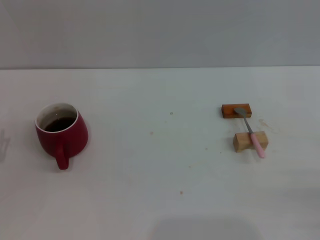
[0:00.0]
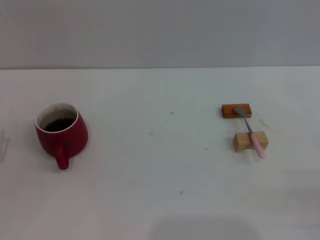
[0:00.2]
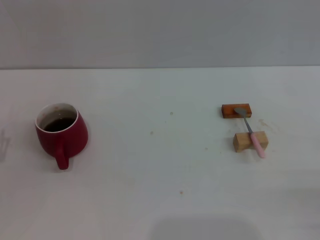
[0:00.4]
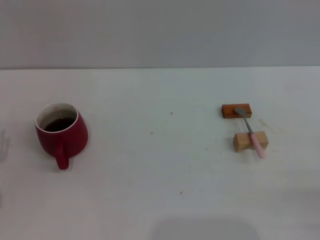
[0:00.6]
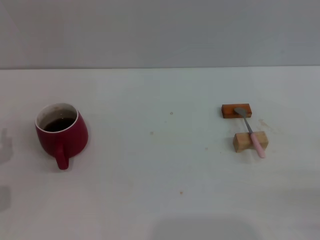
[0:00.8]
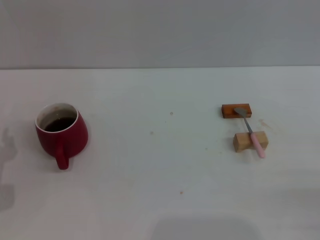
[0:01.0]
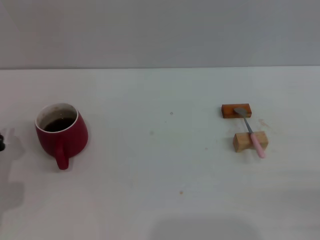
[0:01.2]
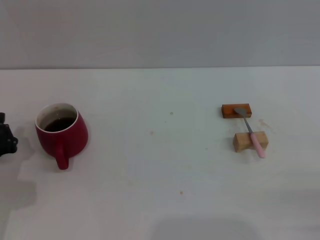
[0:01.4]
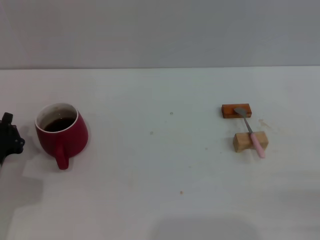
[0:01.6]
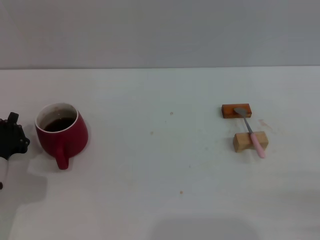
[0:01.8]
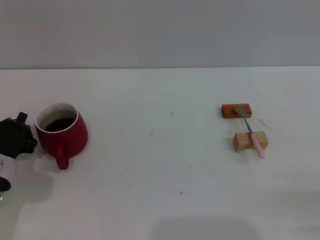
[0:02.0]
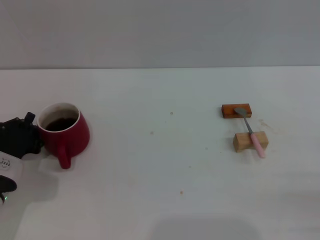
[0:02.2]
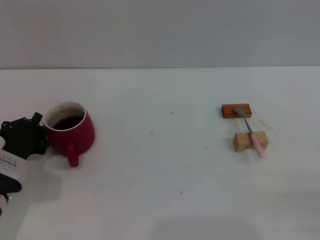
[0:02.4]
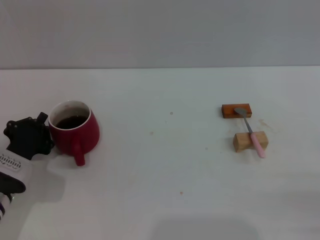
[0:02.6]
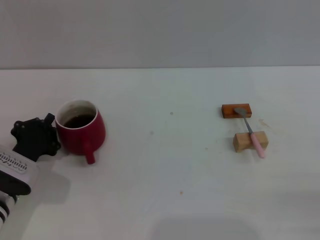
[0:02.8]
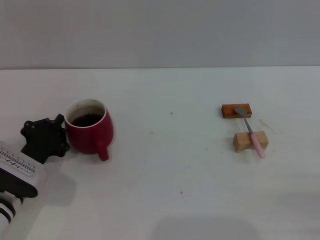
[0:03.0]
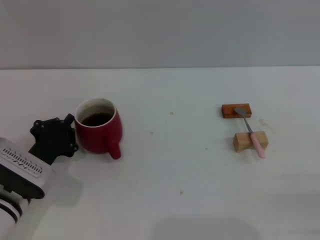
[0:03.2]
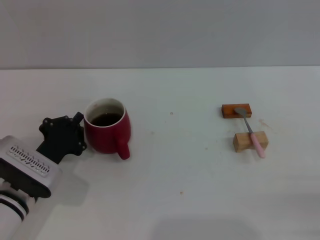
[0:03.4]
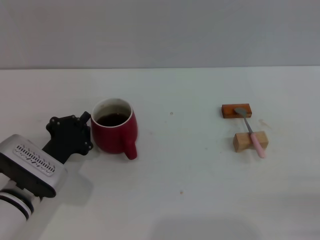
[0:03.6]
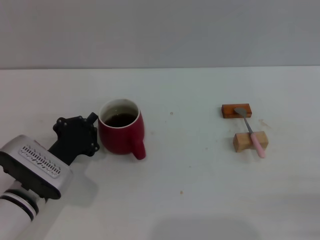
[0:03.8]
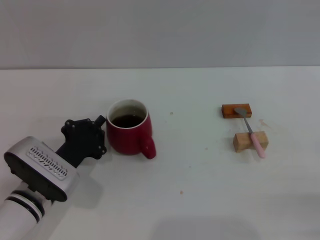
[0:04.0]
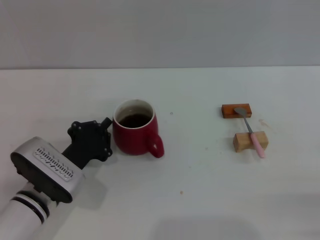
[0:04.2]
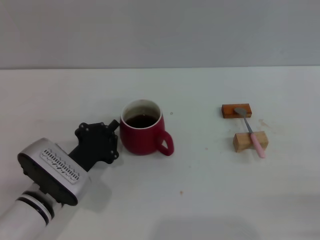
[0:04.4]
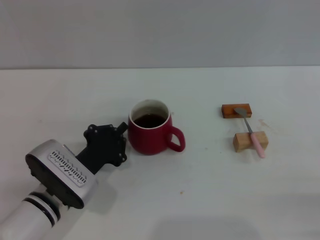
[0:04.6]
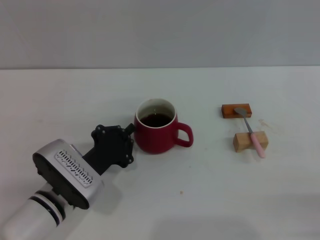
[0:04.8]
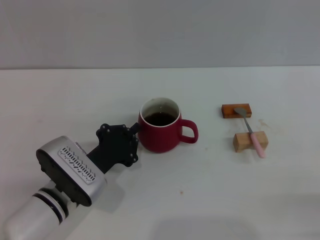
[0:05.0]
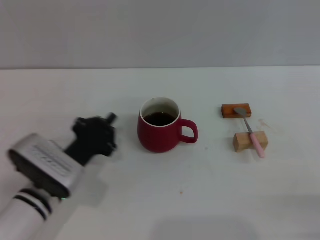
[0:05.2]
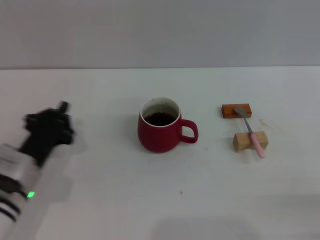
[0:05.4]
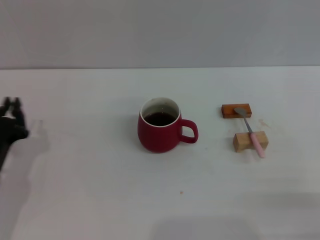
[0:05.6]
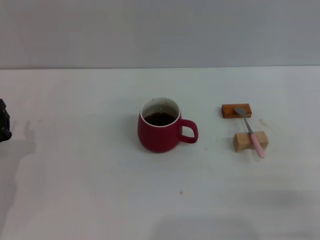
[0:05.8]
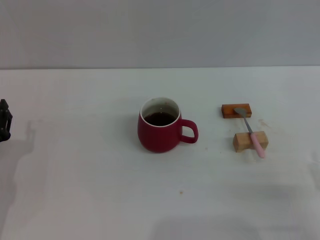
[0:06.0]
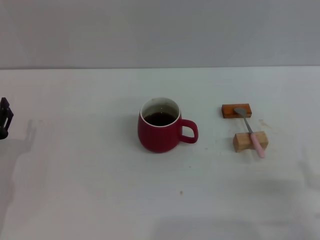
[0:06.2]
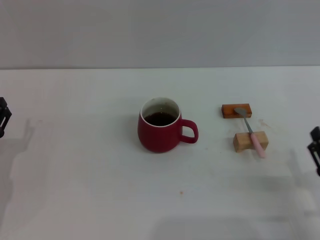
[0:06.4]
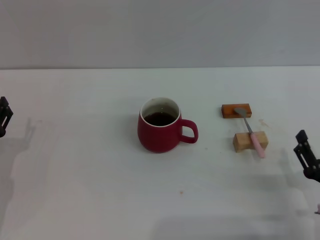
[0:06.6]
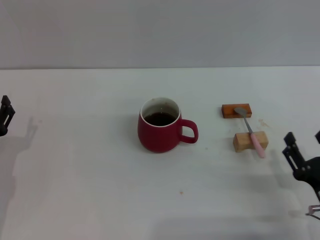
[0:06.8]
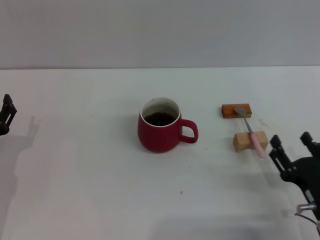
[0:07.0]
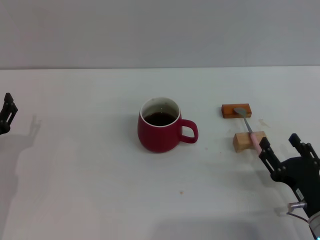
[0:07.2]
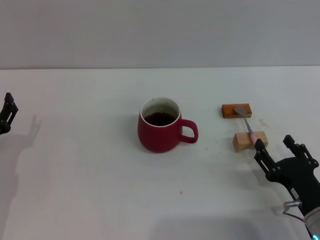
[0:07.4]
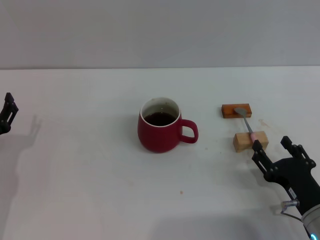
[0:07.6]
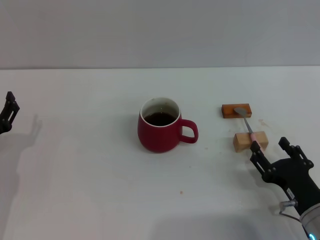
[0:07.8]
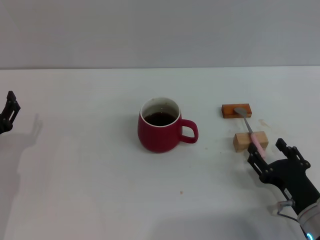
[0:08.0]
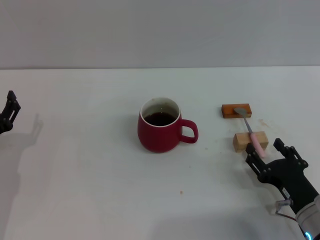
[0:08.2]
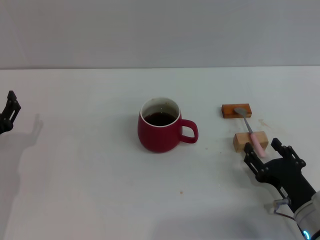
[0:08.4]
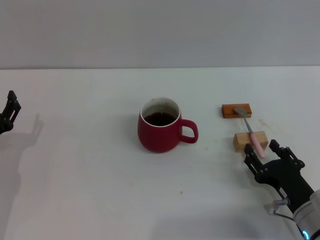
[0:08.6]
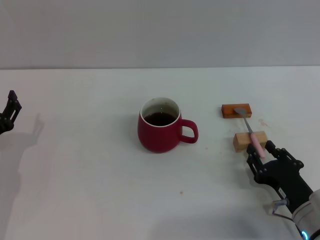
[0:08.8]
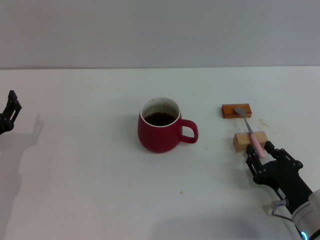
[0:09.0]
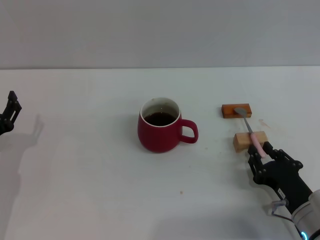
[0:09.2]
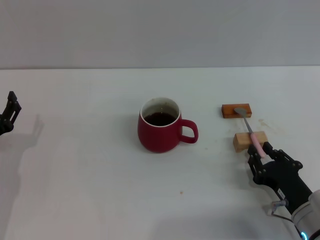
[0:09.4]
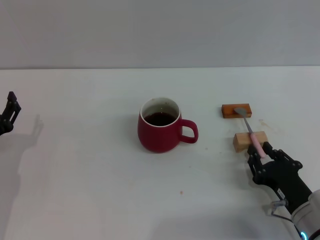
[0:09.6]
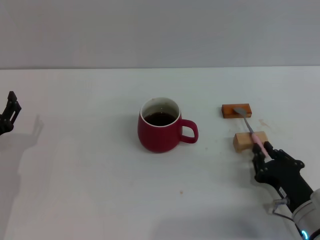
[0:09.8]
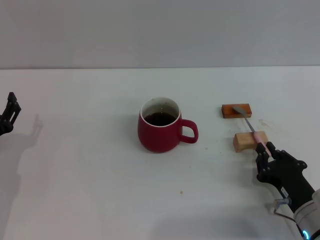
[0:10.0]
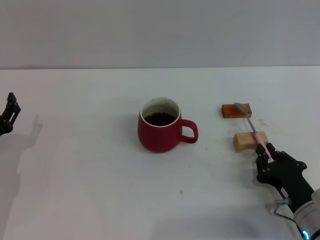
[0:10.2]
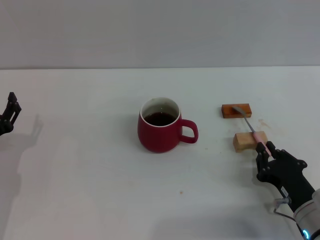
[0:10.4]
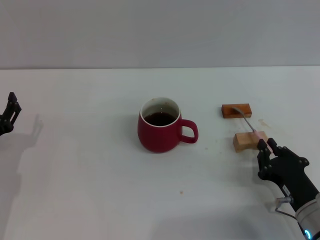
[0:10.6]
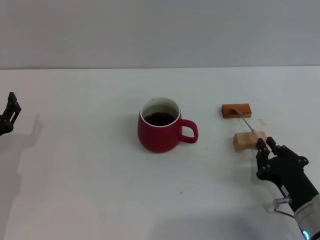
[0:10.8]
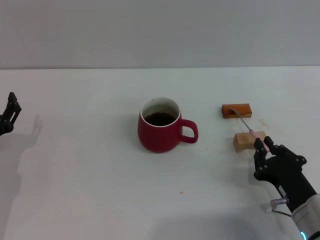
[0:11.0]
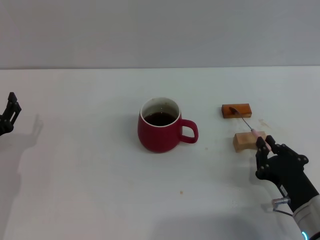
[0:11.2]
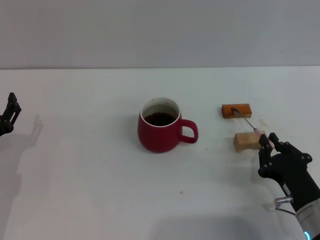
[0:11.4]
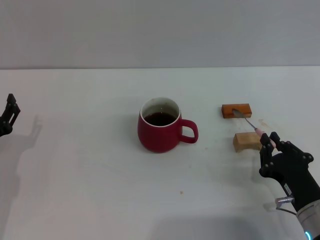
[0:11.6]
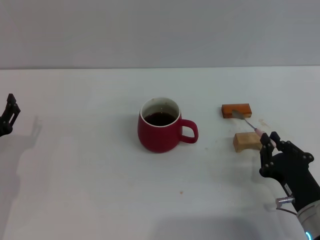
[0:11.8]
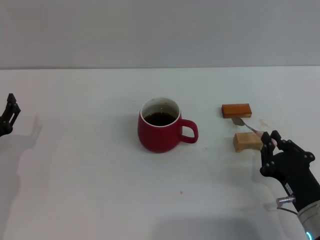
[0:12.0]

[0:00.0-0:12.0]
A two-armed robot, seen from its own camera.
Task of the whole recording: Move the red cup to the center, lift the pink spoon, stir it three times in the cup, and put the spoon into the cup.
Step, 0:00.0 to 0:05.0: Move the cup with coffee to the center of view with the left gripper.
0:00.0 to 0:01.6: The left gripper closes.
0:01.6 to 0:03.0: There are only small adjustments of the grippers.
0:03.0 to 0:04.4: The left gripper is displaced to the right by approximately 5 cm.
0:04.4 to 0:06.0: The left gripper moves to the left, about 10 cm, and opens up.
0:06.0 to 0:07.6: The right gripper goes about 10 cm to the left and forward.
0:07.6 to 0:09.0: The right gripper closes up.
0:09.0 to 0:10.4: The right gripper closes up.
0:10.4 to 0:12.0: The grippers stay close to where they were, moving slightly.

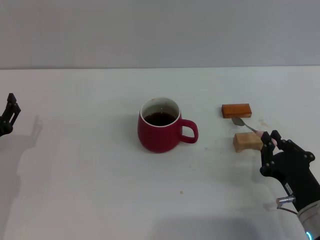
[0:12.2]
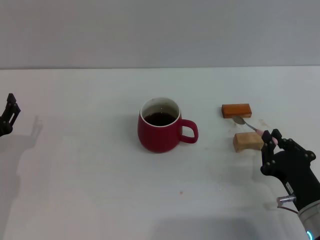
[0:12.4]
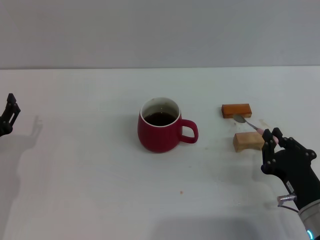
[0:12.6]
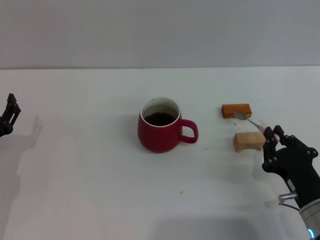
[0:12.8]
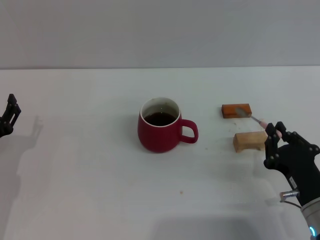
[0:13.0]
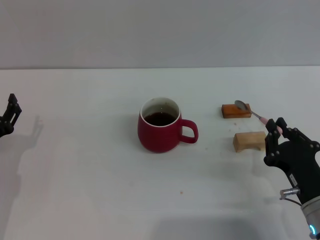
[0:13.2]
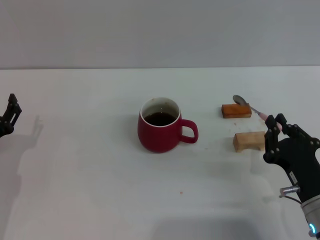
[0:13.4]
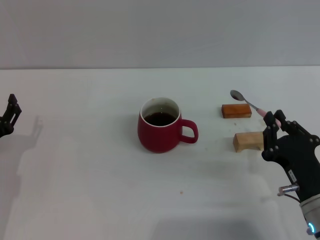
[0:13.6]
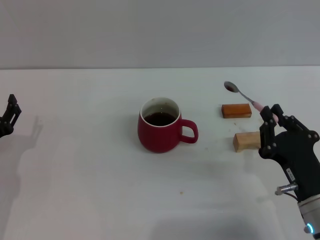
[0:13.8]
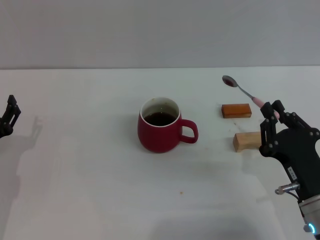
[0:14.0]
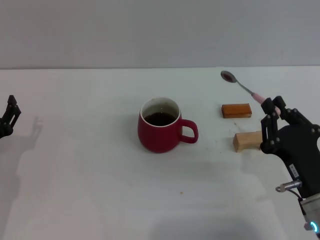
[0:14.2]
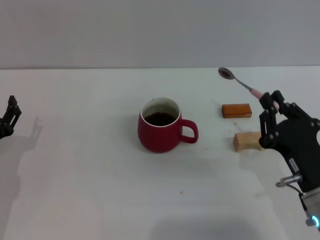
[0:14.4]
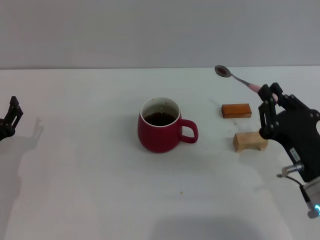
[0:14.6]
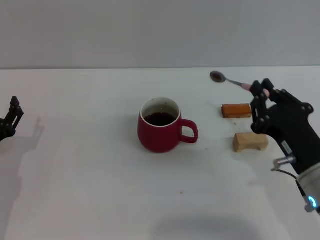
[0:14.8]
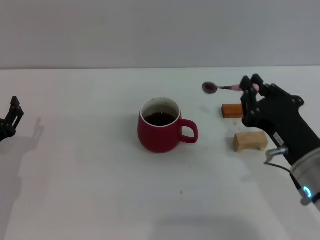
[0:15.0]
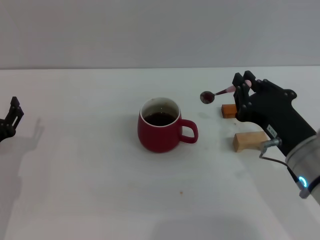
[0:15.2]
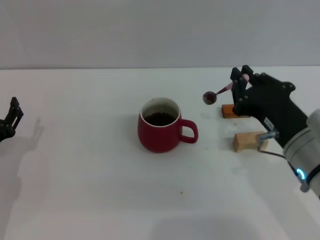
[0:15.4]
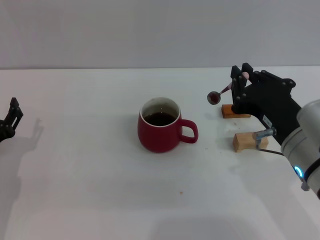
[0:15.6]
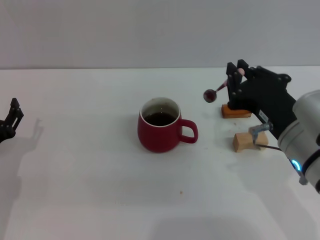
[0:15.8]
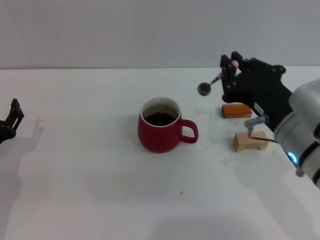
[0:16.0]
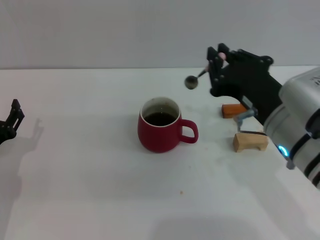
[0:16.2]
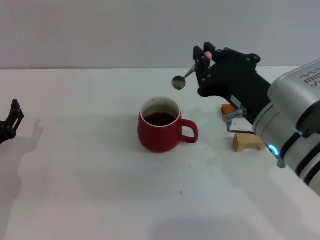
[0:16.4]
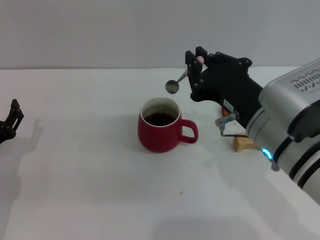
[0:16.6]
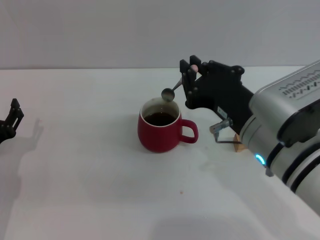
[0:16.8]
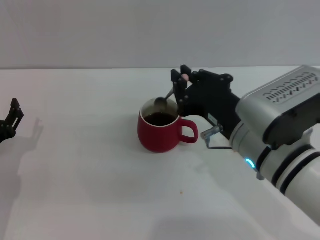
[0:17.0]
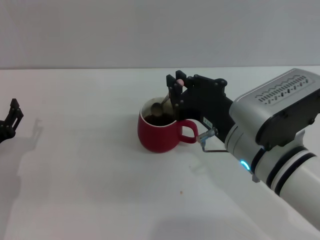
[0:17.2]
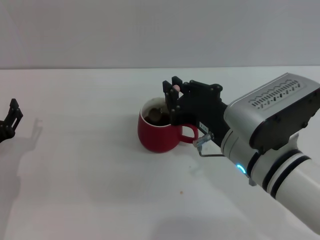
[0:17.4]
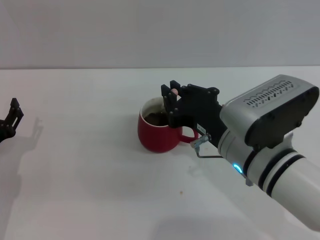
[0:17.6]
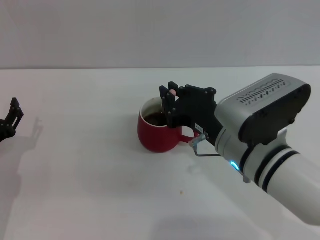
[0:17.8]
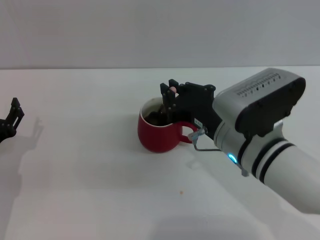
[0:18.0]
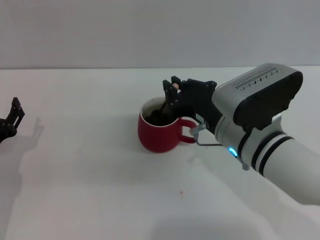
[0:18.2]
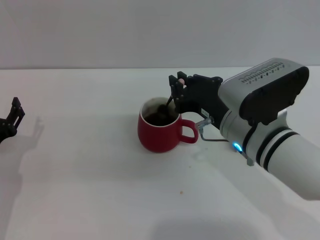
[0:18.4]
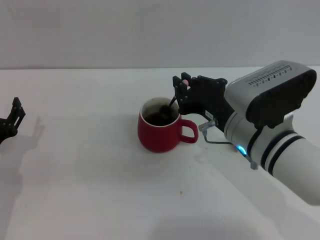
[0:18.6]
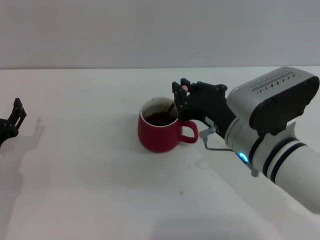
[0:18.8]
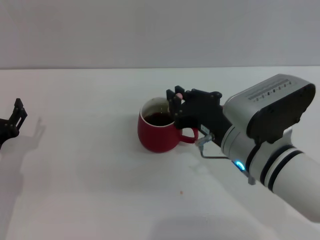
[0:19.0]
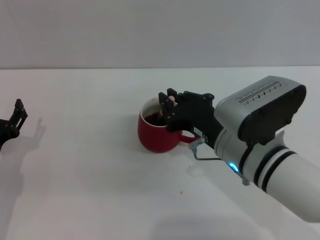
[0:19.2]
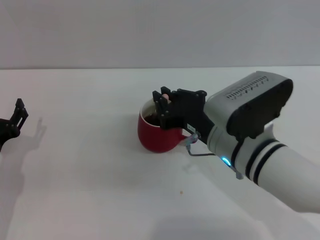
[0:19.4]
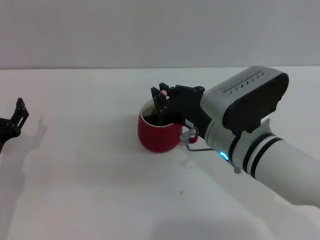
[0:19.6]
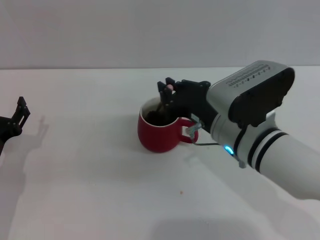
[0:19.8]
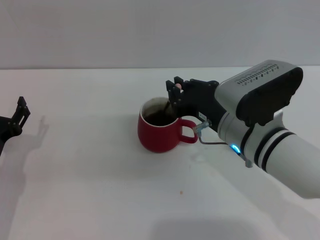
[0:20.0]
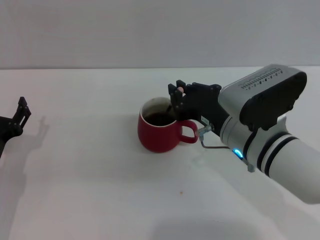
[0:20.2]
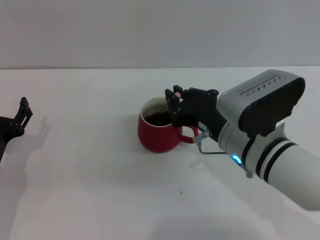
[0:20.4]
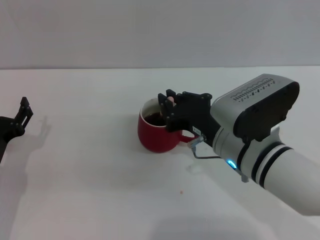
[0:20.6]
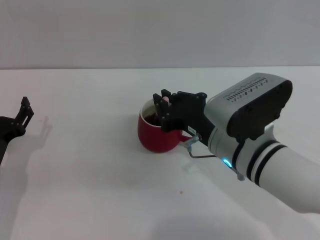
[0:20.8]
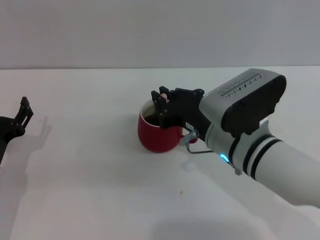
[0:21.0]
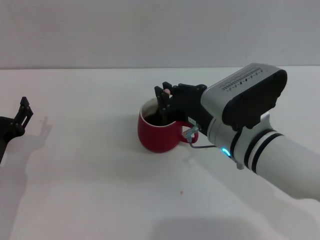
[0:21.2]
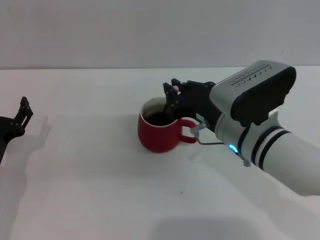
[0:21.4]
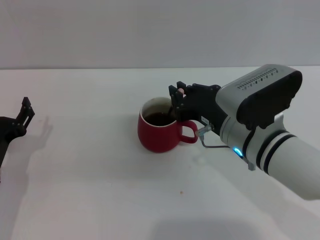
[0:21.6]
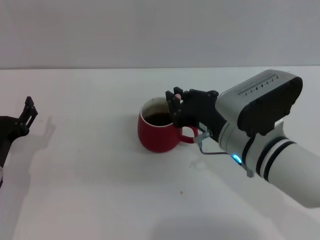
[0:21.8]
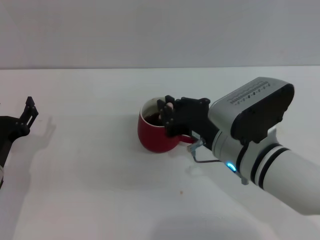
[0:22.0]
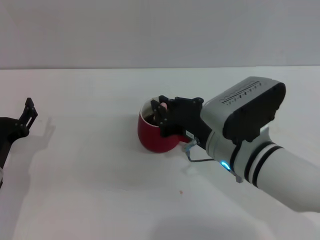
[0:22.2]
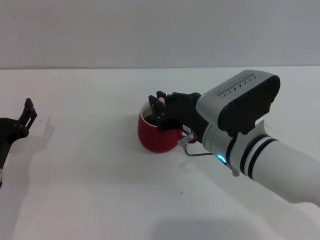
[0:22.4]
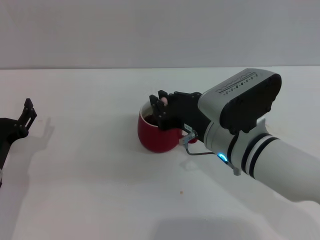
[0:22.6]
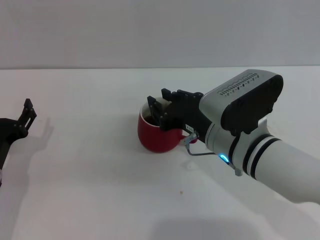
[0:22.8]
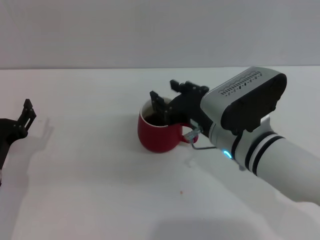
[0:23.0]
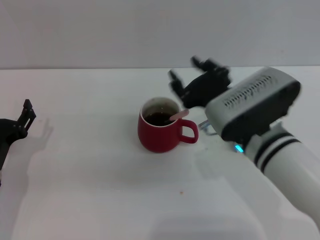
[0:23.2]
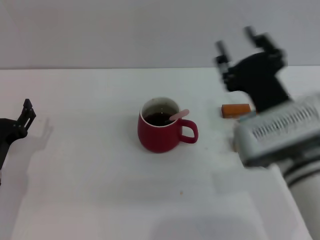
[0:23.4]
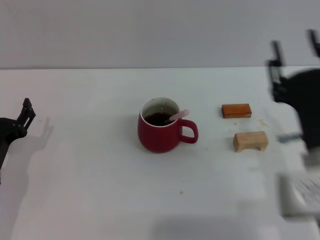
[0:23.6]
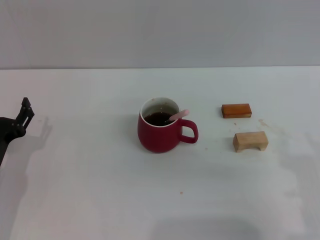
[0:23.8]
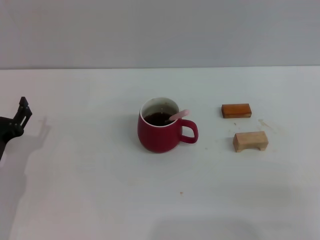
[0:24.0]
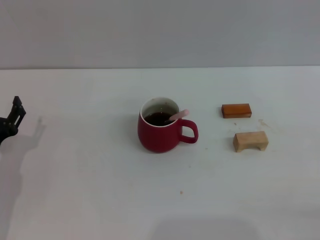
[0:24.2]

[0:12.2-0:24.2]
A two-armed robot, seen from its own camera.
Task of the whole recording: Move the red cup to the center, lift the pink spoon, stir it three times in the cup, and put the spoon into the cup.
Step, 0:12.2 to 0:14.2: Pick up the spoon with the right gripper.
Step, 0:14.4 to 0:23.0: Stir the coffee in the cup with the right gripper.
0:12.2 to 0:13.8: The grippers make only small movements.
0:13.8 to 0:15.2: The right gripper is displaced upward by some 10 cm.
0:15.2 to 0:16.6: The right gripper ends up some 5 cm from where it was.
0:16.6 to 0:18.2: The right gripper changes place by approximately 5 cm.
0:18.2 to 0:22.6: There are only small adjustments of the grippers.
0:22.6 to 0:24.2: The right gripper heads to the right and backward, covering approximately 30 cm, and opens up.
